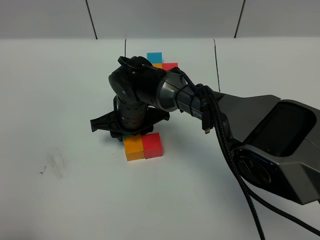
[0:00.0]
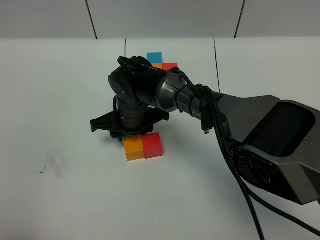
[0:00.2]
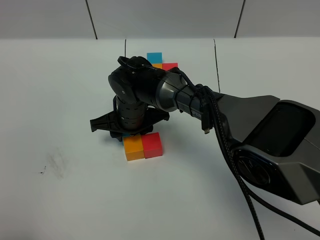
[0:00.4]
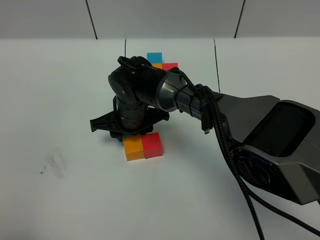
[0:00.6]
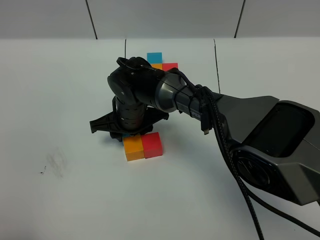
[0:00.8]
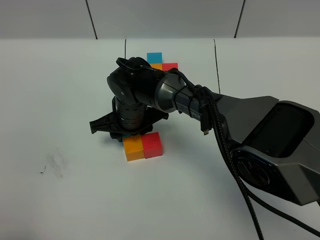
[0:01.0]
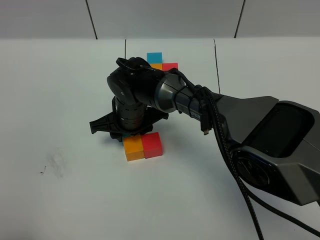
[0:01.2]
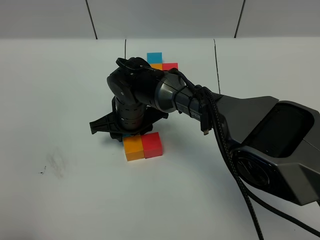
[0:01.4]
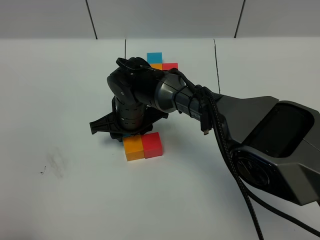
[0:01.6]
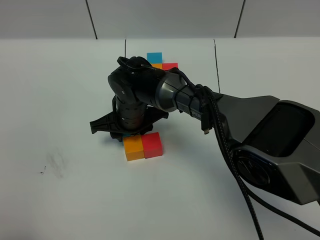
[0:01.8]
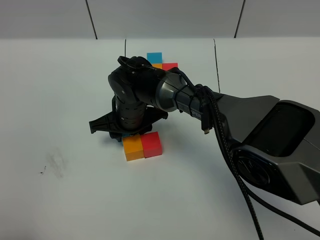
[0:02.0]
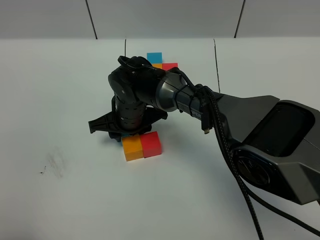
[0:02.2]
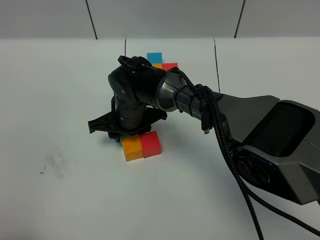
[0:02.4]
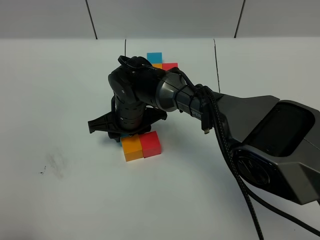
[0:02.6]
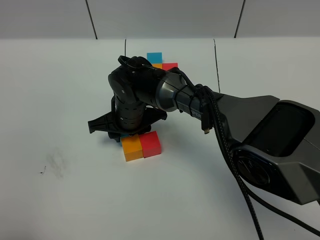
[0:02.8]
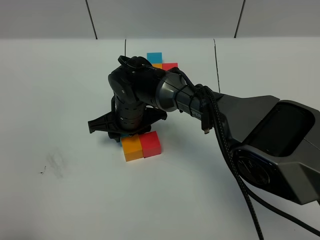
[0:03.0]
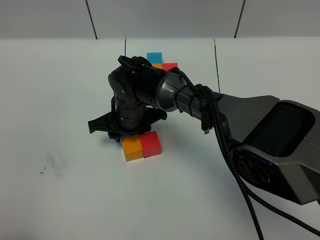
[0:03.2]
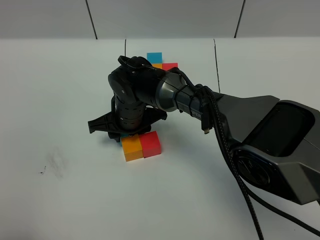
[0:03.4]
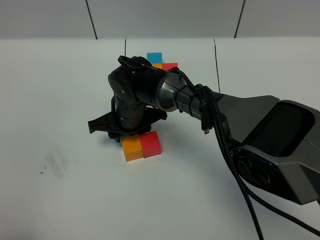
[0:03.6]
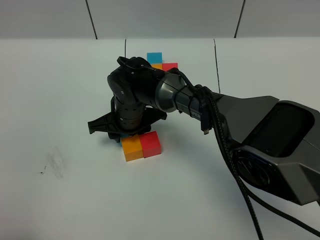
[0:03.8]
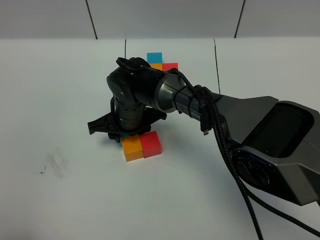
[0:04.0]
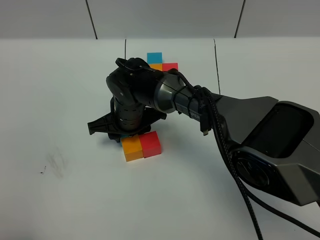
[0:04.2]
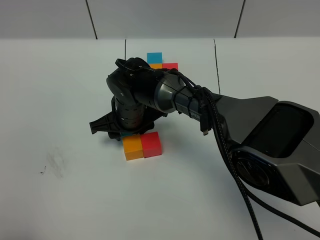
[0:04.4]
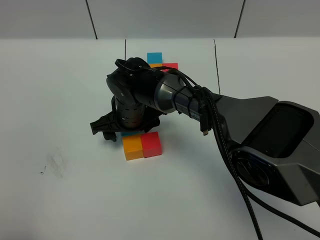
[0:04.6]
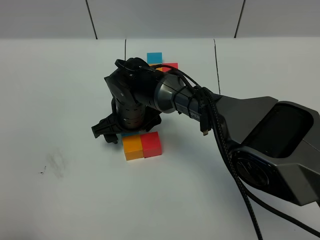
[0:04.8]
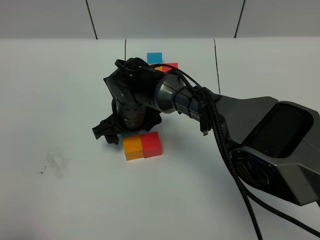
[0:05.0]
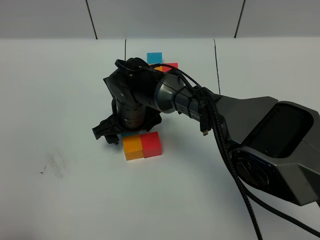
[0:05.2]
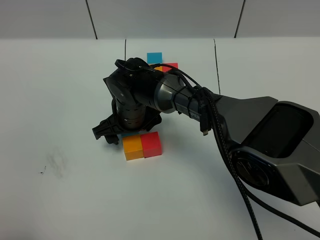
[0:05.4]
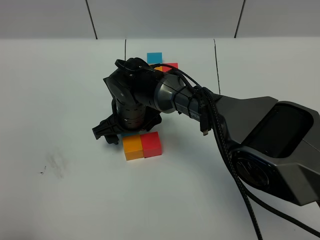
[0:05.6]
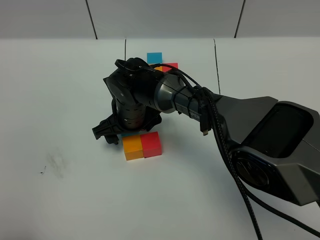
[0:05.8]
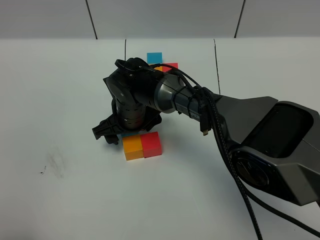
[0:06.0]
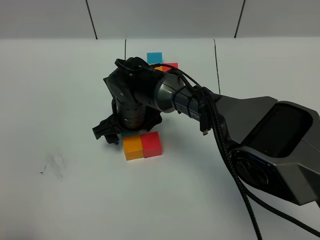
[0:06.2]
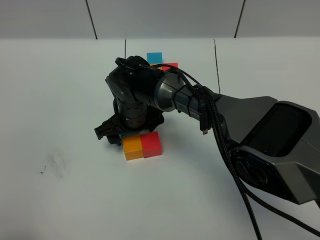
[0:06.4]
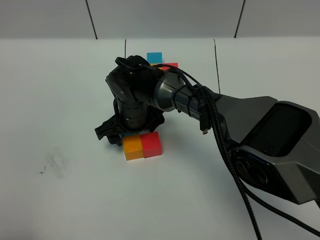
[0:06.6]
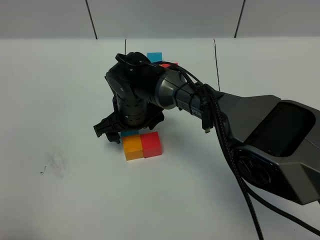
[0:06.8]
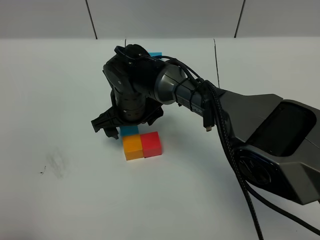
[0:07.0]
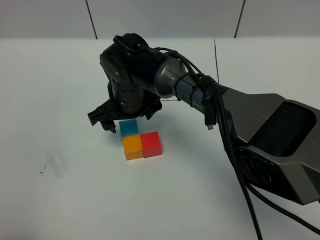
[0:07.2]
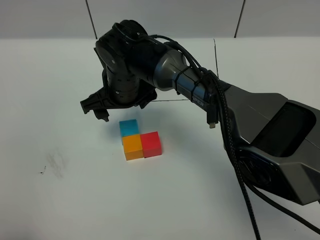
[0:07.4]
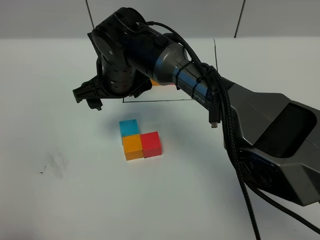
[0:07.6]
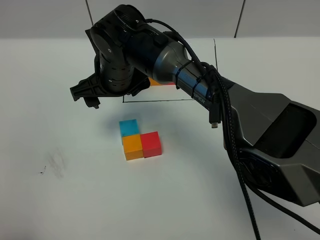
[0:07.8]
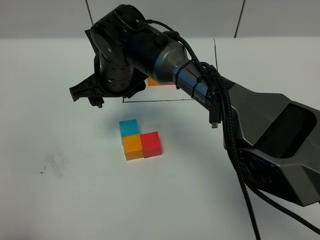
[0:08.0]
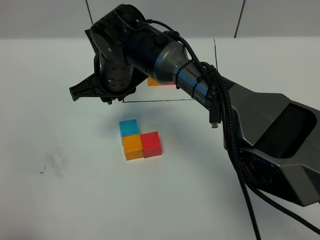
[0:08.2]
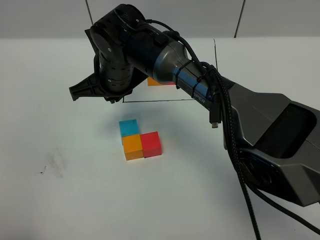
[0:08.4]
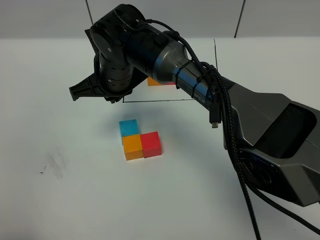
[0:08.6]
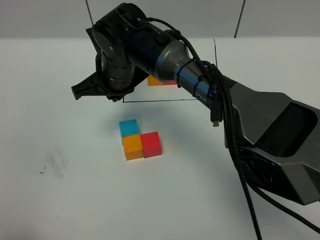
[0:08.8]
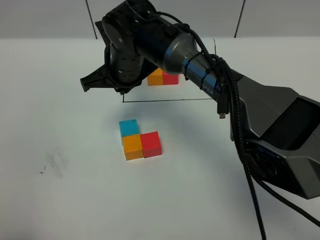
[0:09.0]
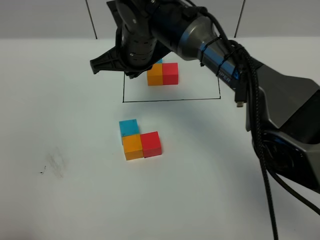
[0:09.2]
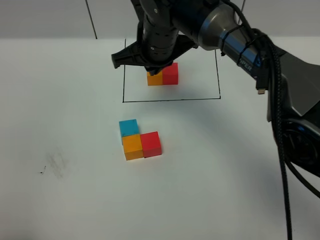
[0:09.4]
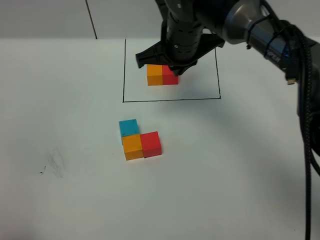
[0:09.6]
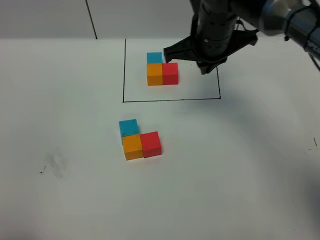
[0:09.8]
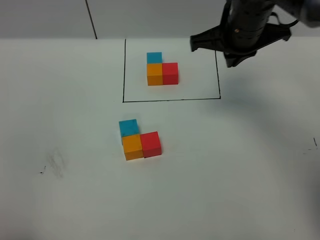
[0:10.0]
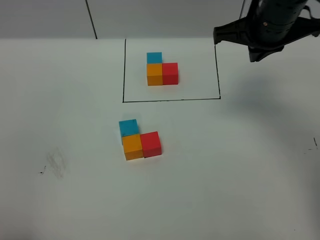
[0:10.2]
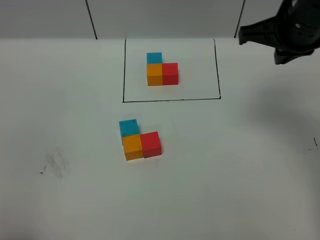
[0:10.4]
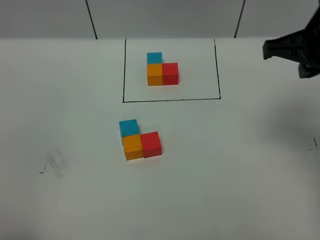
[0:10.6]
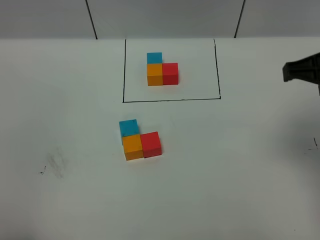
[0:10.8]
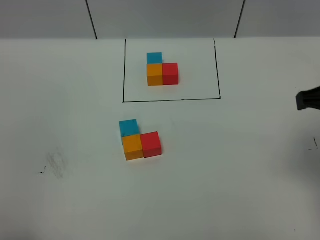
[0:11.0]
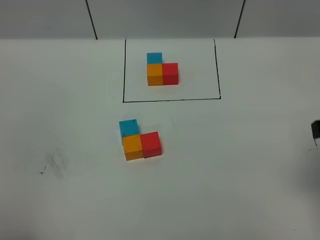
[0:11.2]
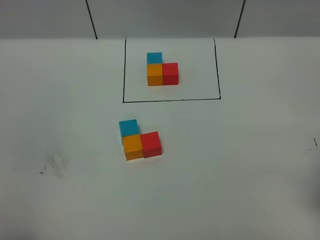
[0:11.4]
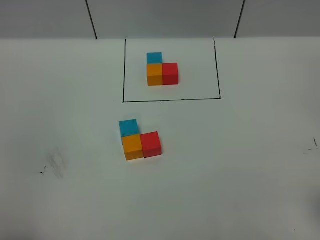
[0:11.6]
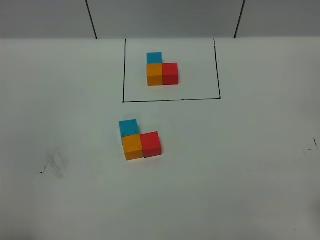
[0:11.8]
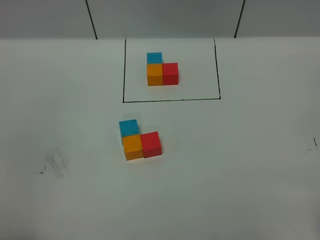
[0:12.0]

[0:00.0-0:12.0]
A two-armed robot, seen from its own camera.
Task of the whole recording: According to the building block template in front, assemble the scattered blocks together.
Step, 0.0 to 7.6 s: Put the blue cube on the behind of the orange cube.
0.0 to 3.0 s: The two grippers keep their place.
3.0 to 4.4 s: Both grippers stay about where they are.
4.4 to 6.0 s: The grippers stay close to where they were, moving slightly.
6.0 to 7.6 s: The right gripper goes roughly 10 cm upward.
7.6 to 9.0 s: The right gripper closes.
9.0 to 10.4 s: The right gripper shifts roughly 30 cm to the right and upward.
10.4 to 12.0 s: The right gripper travels backward and to the right by approximately 25 cm.

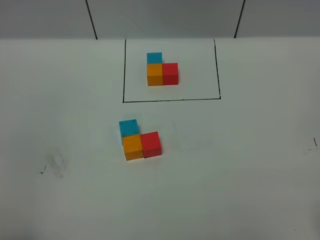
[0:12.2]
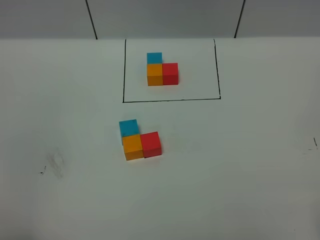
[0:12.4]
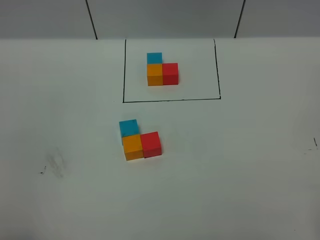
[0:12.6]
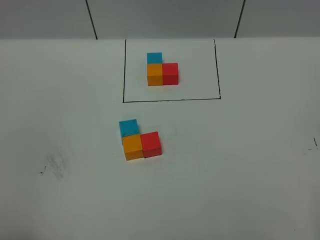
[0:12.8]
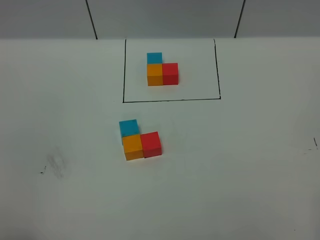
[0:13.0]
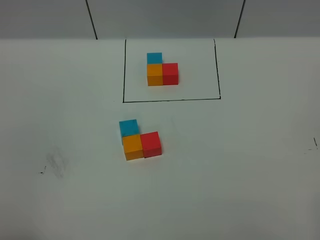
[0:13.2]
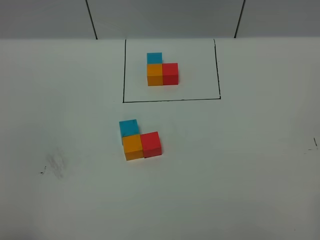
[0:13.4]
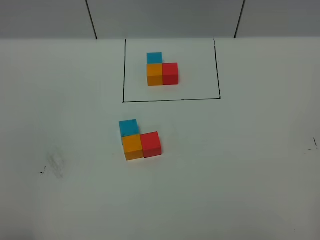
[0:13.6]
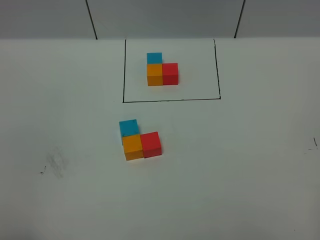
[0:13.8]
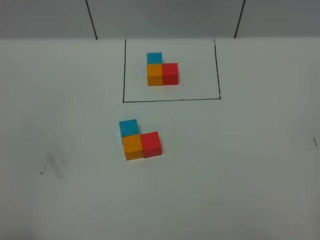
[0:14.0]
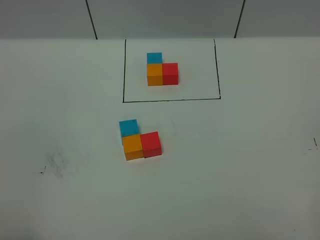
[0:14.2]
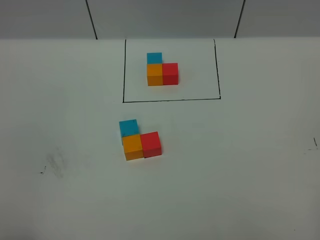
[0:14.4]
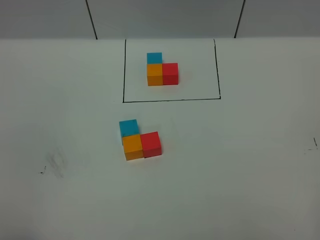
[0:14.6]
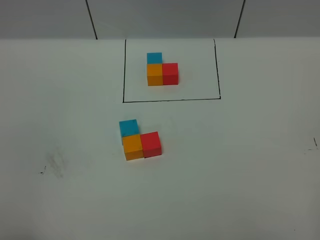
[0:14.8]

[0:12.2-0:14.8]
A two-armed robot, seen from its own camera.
Task of the whole recording: According to the building block template in front, assemble the scattered blocks together.
13.4 to 14.8 s: Both grippers stay put.

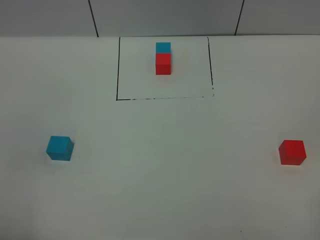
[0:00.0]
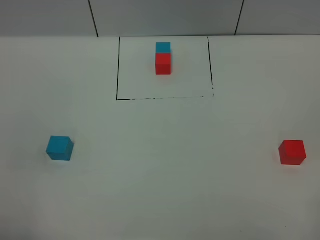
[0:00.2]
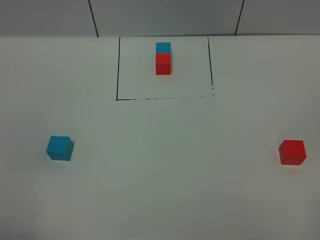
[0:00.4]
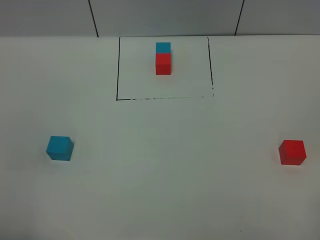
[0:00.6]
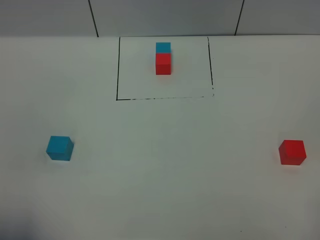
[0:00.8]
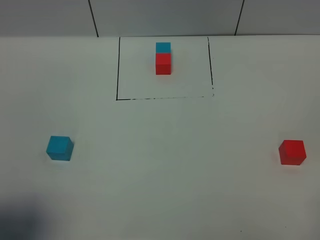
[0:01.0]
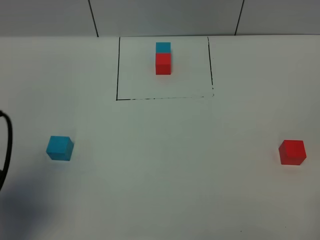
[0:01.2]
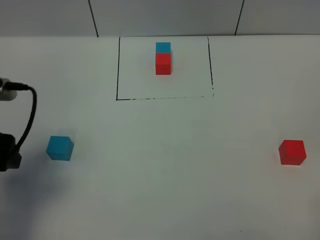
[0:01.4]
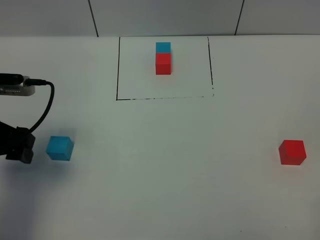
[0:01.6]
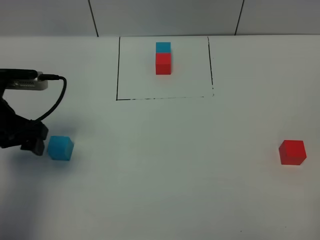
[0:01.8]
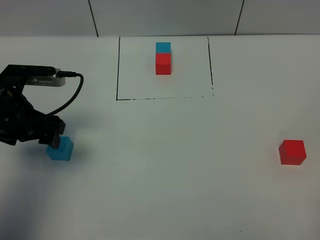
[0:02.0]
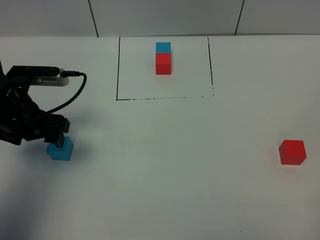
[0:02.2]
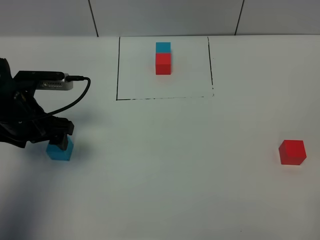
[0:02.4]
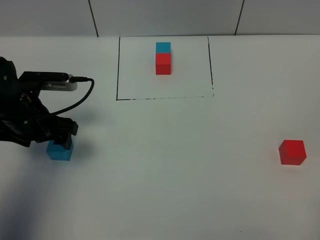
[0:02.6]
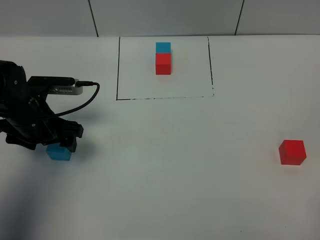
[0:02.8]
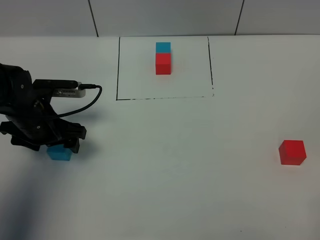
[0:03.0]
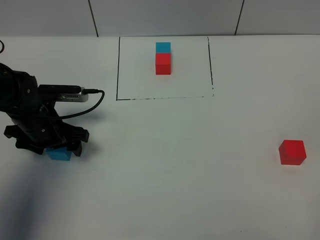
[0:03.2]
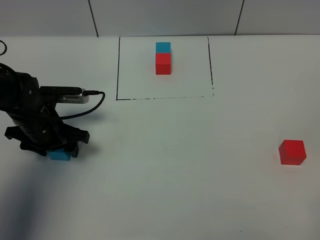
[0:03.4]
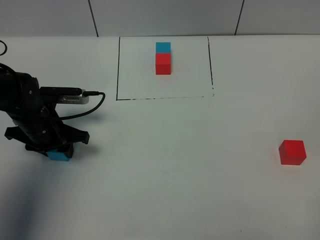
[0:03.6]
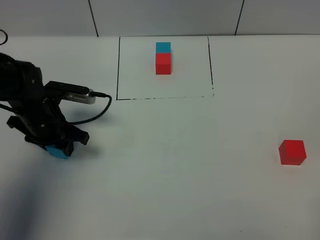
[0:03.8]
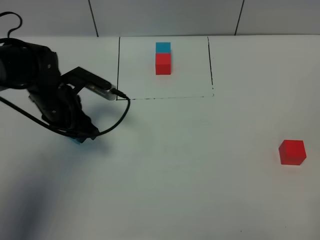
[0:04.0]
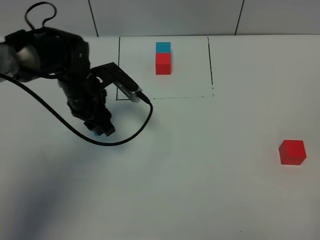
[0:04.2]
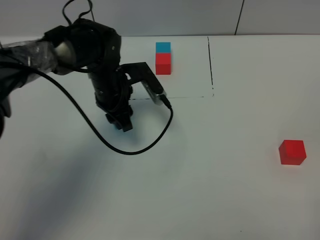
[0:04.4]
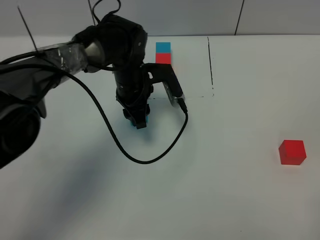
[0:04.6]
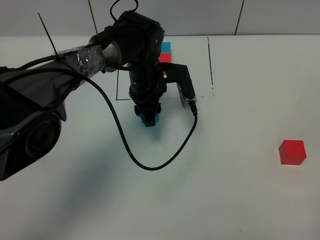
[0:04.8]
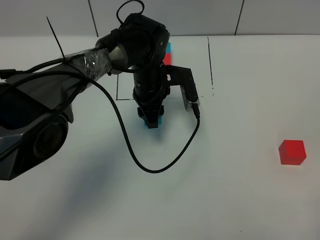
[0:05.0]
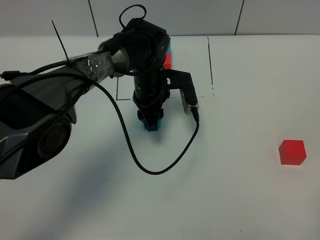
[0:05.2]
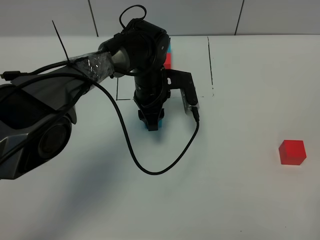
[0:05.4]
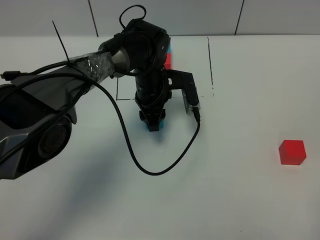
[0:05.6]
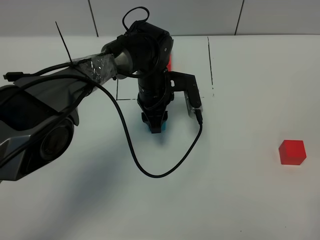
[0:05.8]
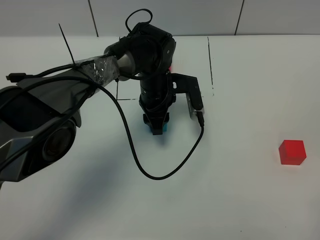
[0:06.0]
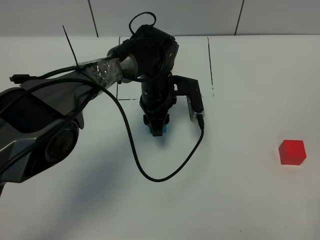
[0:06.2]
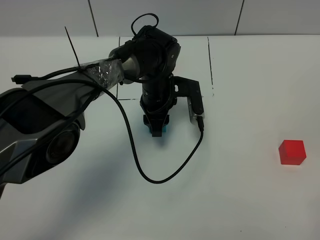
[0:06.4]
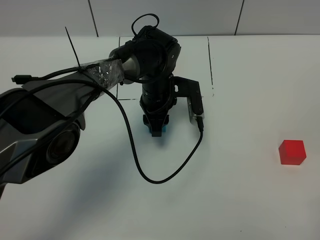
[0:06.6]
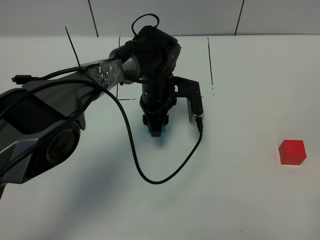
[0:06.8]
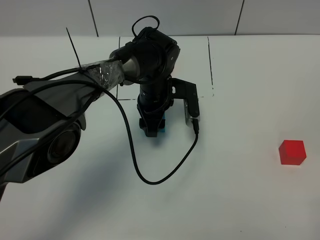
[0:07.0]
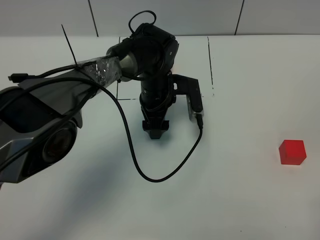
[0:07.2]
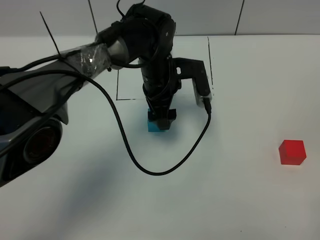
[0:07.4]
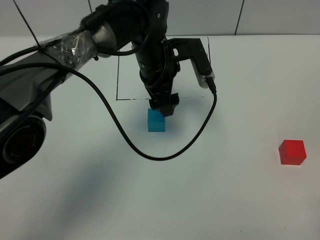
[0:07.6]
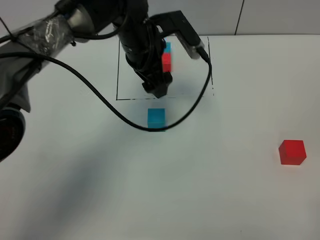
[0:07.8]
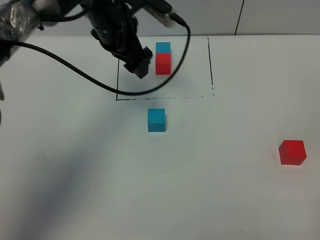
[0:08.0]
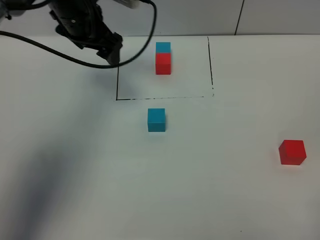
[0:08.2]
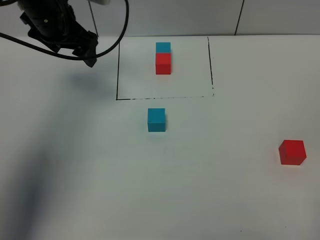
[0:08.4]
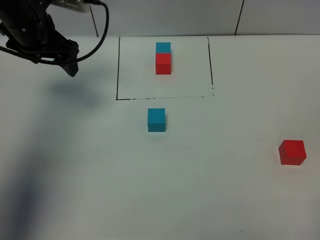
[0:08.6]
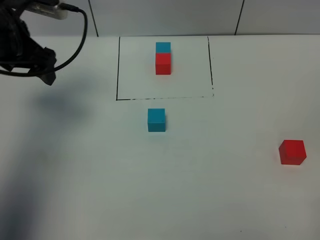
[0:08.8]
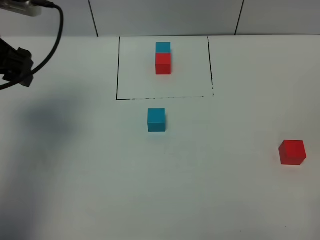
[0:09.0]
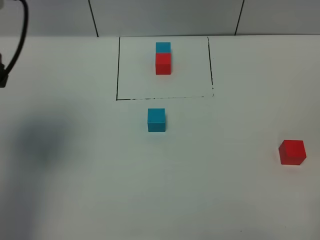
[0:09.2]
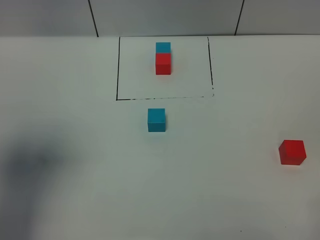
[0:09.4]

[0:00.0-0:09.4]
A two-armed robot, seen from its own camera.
Task of the whole recording: According to the building block template in front, assemble the scattered blocks together.
Step, 1.2 to 7.2 s: Put the blue cube in the center of the table.
0.0 to 1.6 s: The left gripper heads forward, covering approximately 25 cm.
1.6 to 3.2 s: The left gripper travels downward and forward by roughly 15 cm.
3.2 to 4.8 s: The left gripper is displaced to the right and forward by some 20 cm, and closes its fingers.
4.8 to 6.2 s: The grippers stay close to where they were, moving slightly.
6.2 to 7.8 s: The left gripper shifts some 15 cm upward, and opens up.
7.8 to 9.4 s: The left gripper goes approximately 35 cm backward, to the left and upward.
